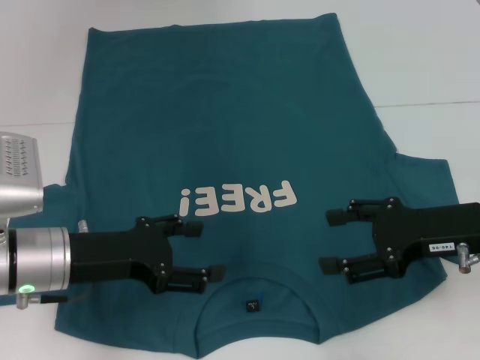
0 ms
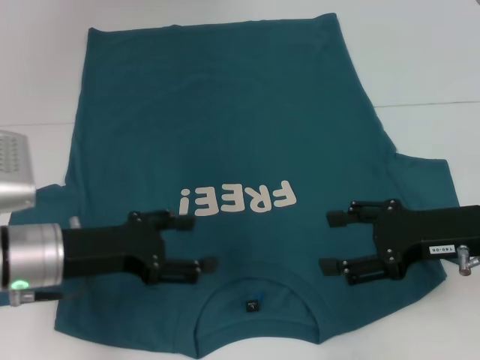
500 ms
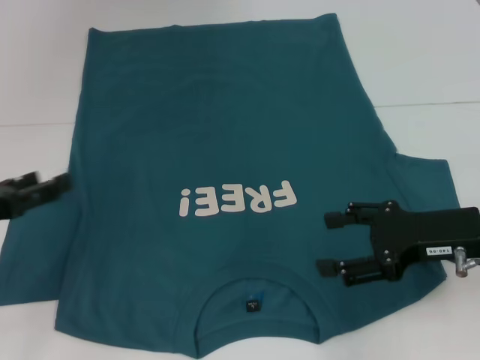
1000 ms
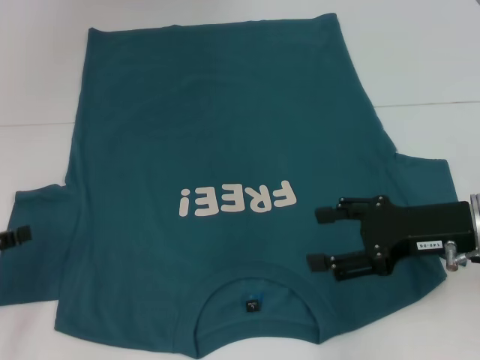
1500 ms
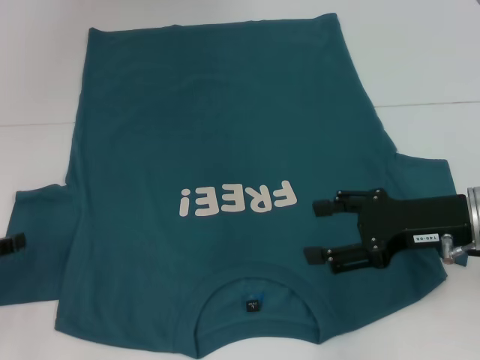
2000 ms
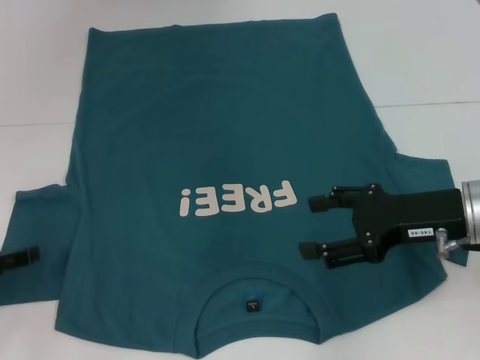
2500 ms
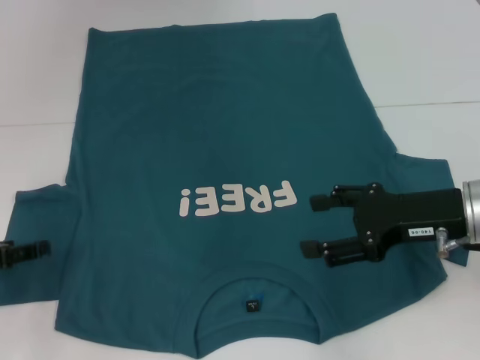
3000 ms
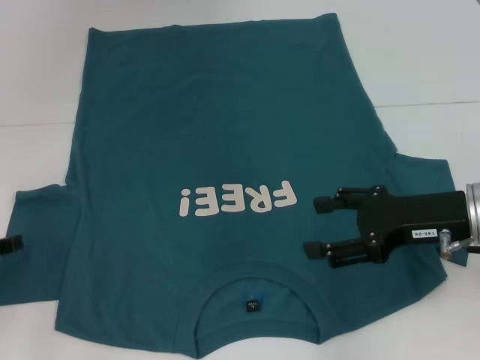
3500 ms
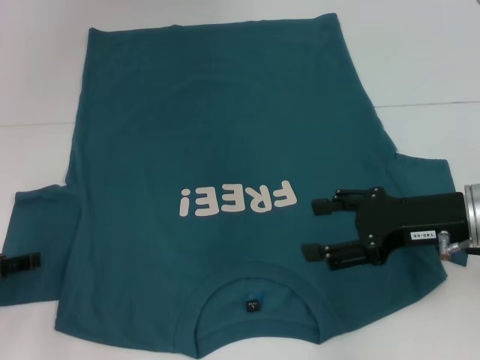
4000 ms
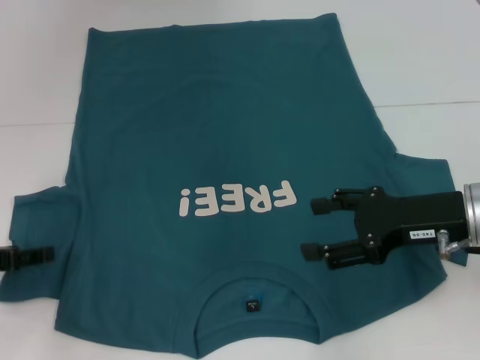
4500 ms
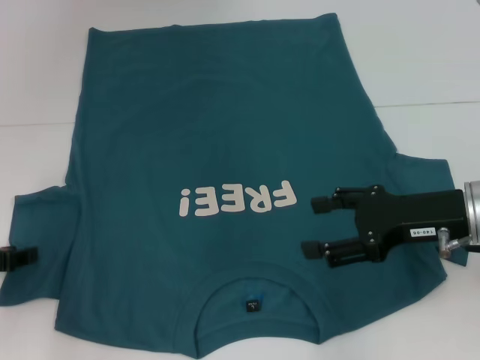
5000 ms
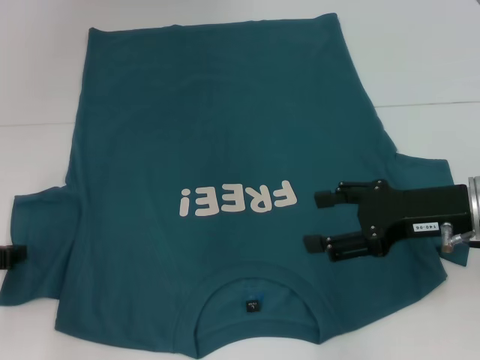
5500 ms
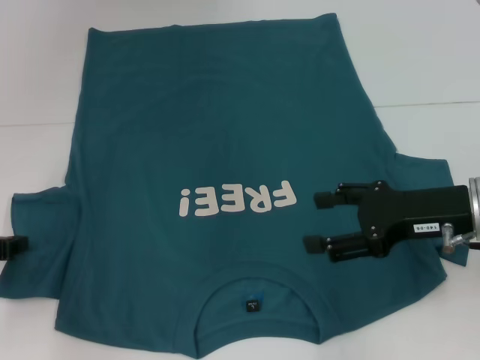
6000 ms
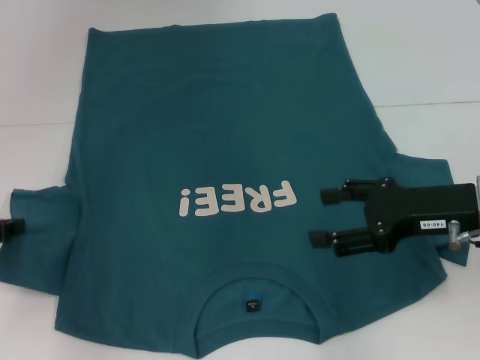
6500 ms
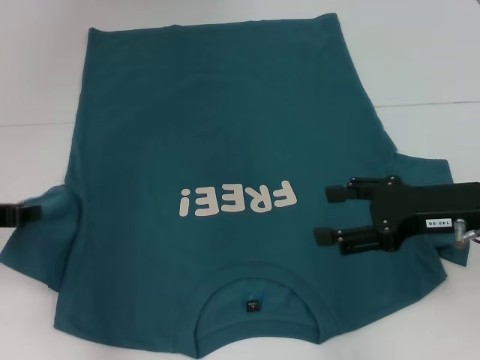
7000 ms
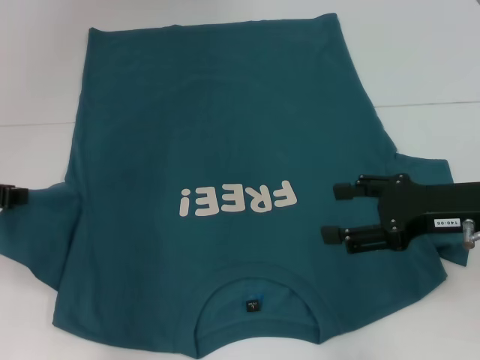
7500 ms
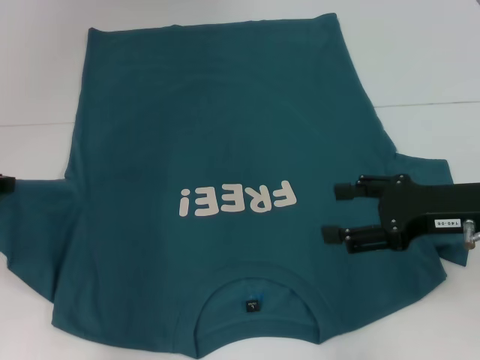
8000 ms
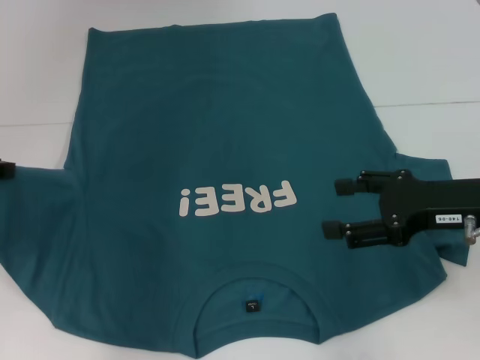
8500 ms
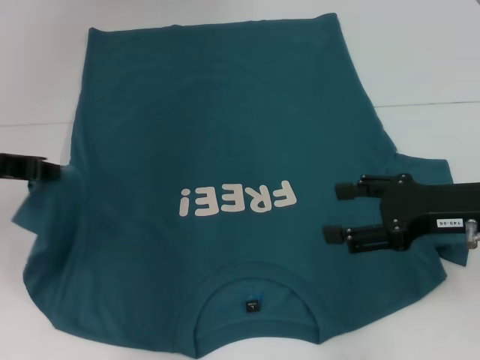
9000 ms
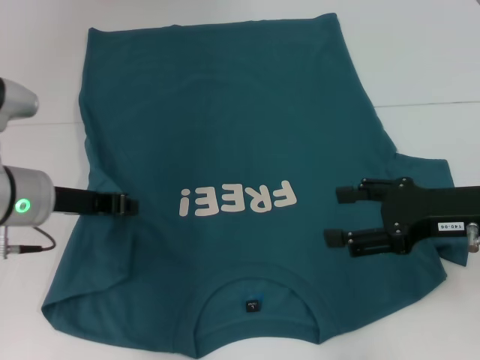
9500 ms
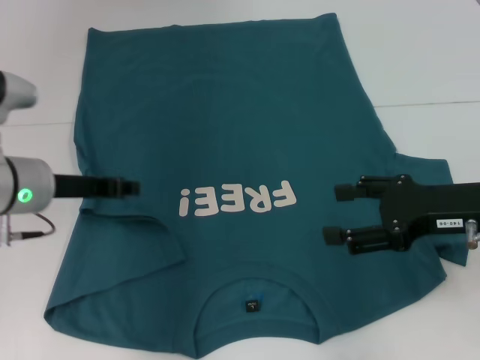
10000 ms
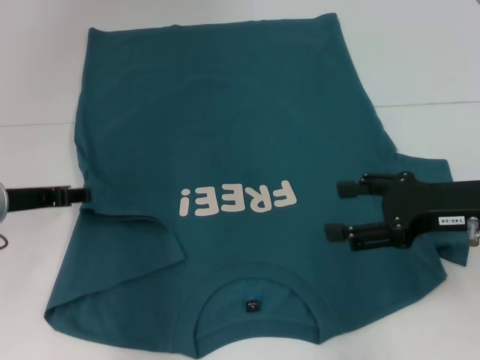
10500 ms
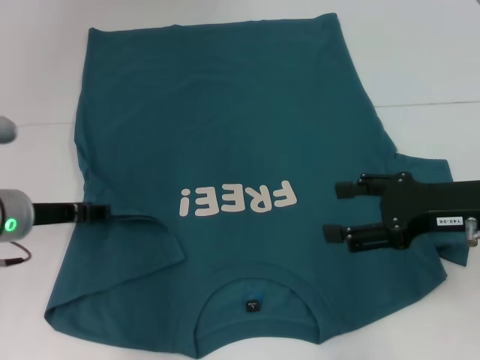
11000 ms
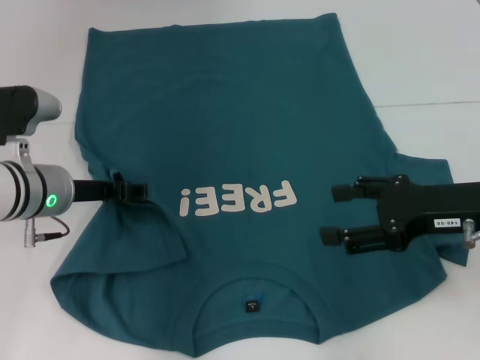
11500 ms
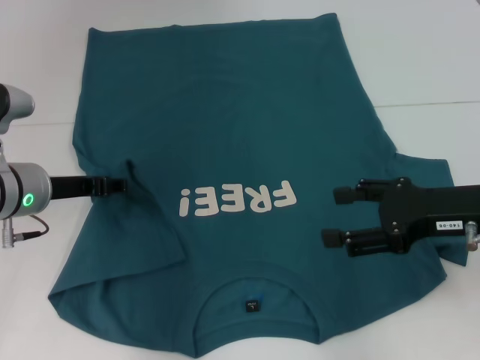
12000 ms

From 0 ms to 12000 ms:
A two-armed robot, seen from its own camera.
From 0 ms to 2000 ms: The left gripper travels to the left by some 15 cm.
From 2000 ms to 4000 ms: There are only small adjustments of the grippers.
From 4000 ms to 6000 ms: The left gripper closes up.
From 6000 ms to 8000 ms: The left gripper heads upward, covering approximately 10 cm.
From 8000 ms to 10000 ms: The left gripper goes roughly 10 cm to the right.
From 10000 ms to 12000 ms: The left gripper opens its fingers.

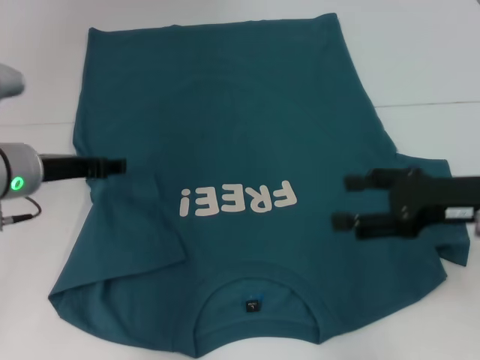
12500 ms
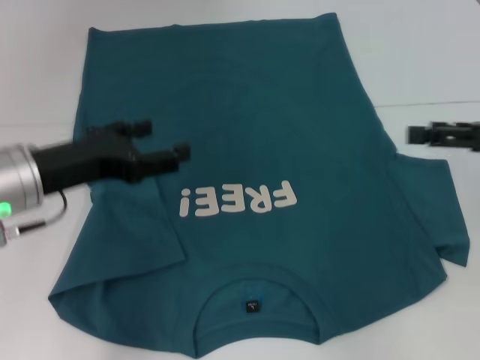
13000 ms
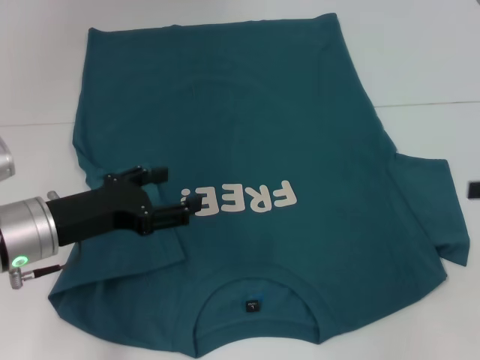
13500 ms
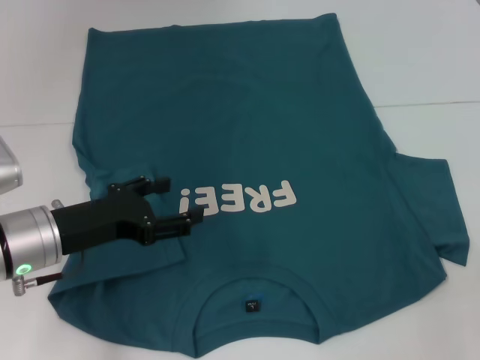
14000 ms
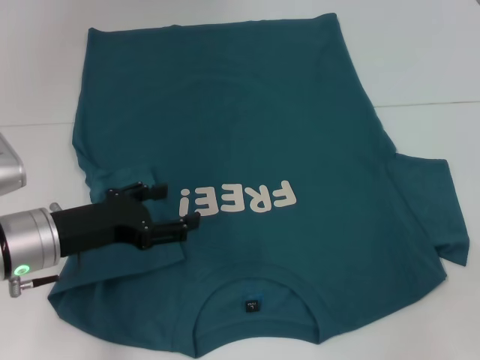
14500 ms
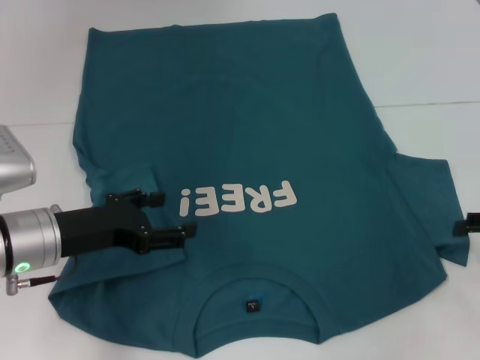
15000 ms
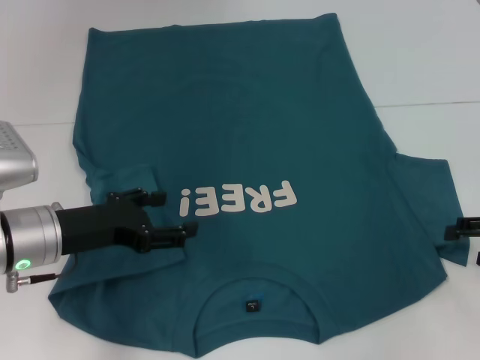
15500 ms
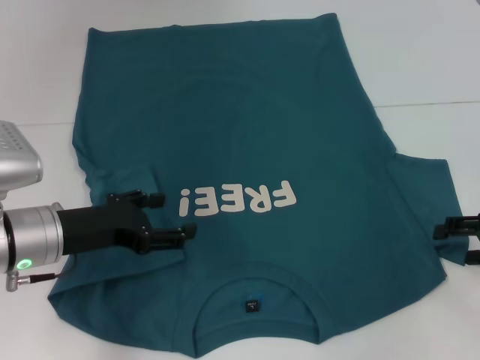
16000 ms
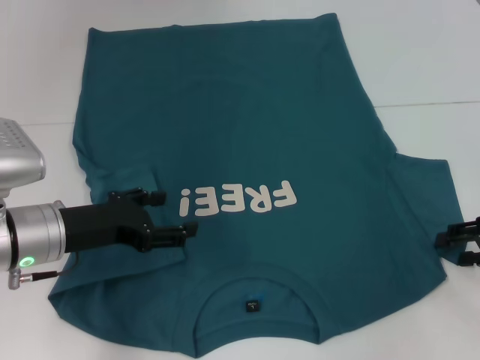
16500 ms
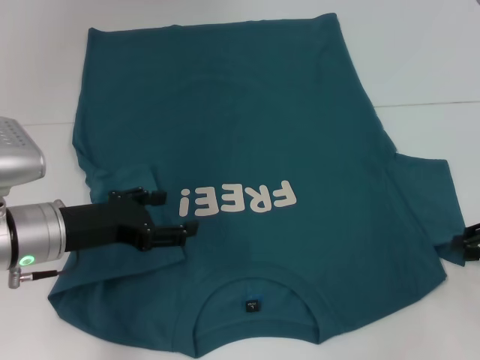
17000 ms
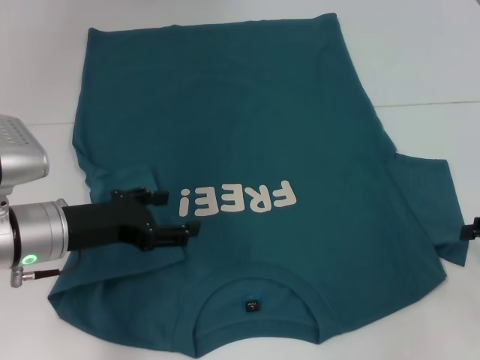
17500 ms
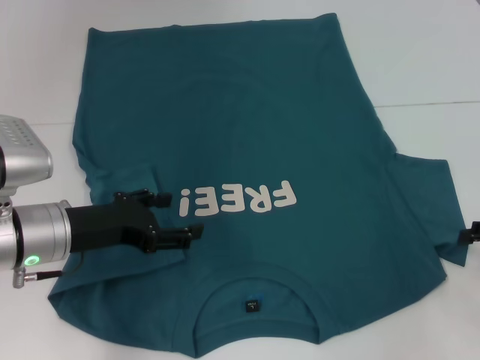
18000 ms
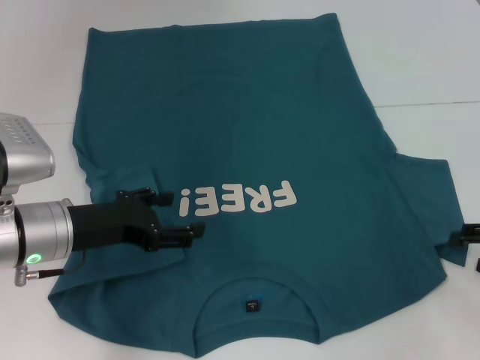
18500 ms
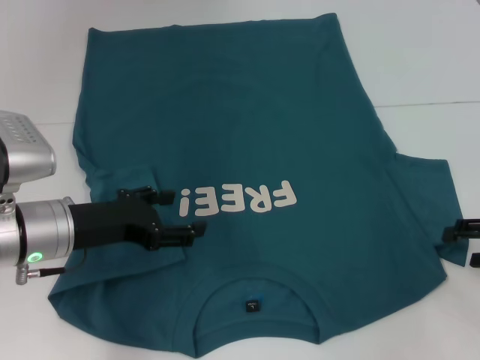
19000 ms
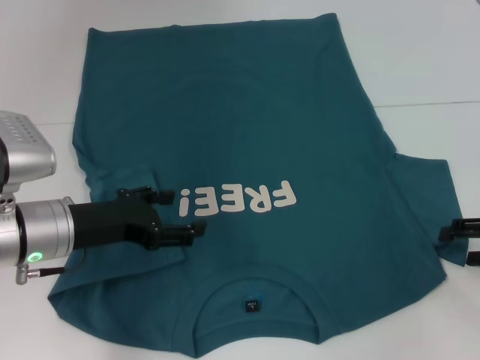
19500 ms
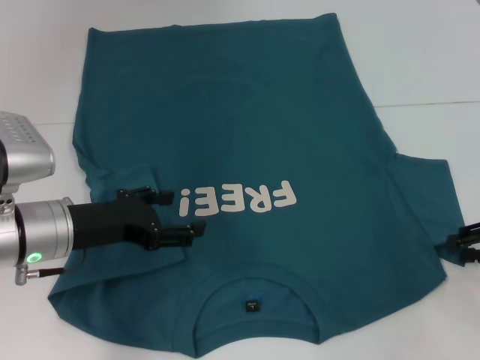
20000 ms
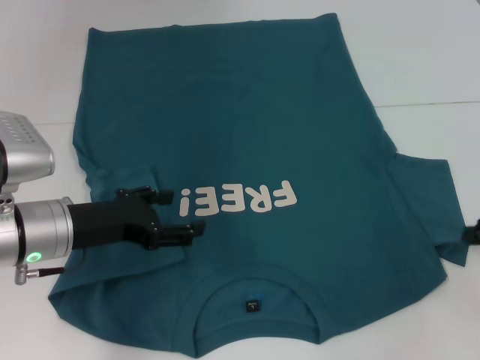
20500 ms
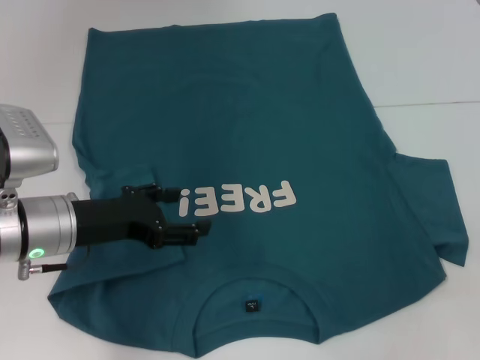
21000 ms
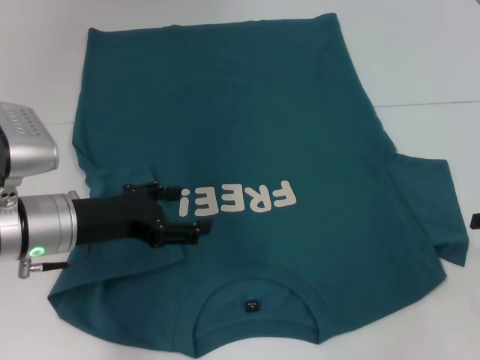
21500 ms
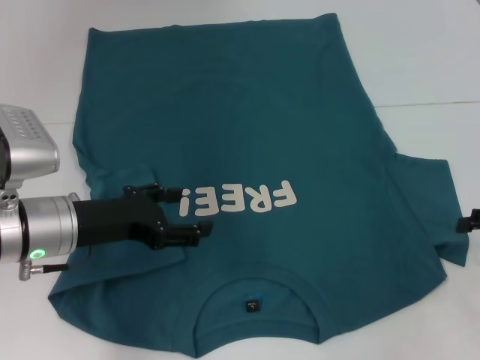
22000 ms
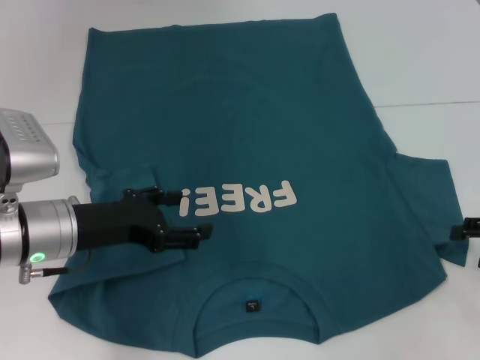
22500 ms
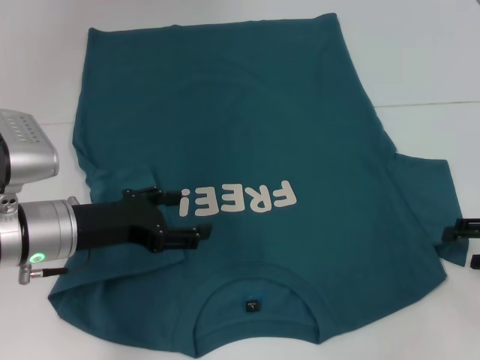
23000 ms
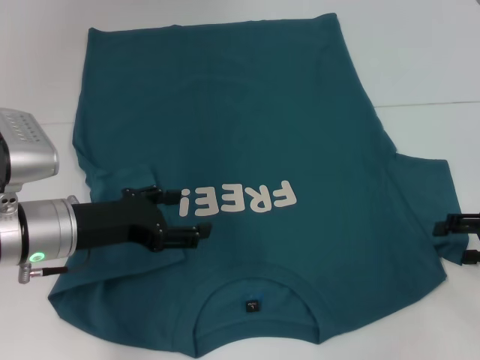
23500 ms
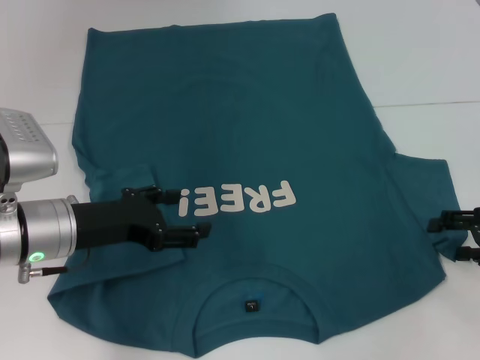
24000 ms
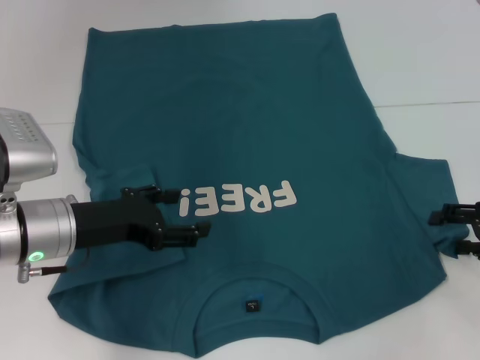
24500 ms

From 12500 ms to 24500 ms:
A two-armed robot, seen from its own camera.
From 12500 ms to 14500 ms: The right gripper goes roughly 15 cm to the right. The left gripper moves backward, roughly 5 cm.
From 14500 ms to 16500 ms: The right gripper ends up some 5 cm from where it was.
From 16500 ms to 18500 ms: The grippers move only a little.
From 22500 ms to 24500 ms: The grippers move only a little.

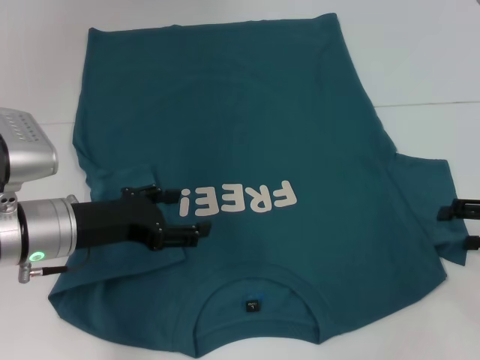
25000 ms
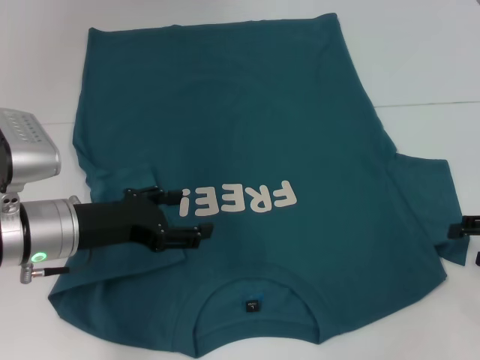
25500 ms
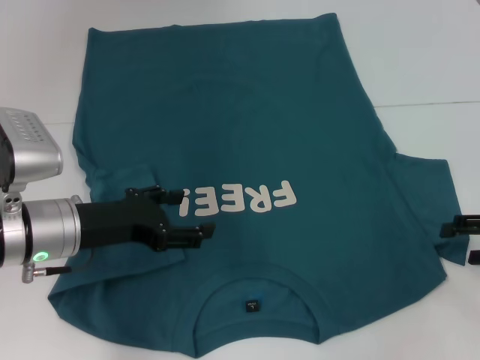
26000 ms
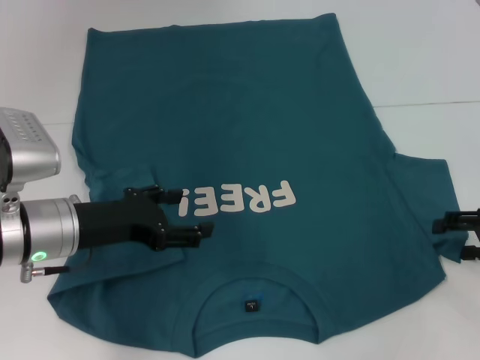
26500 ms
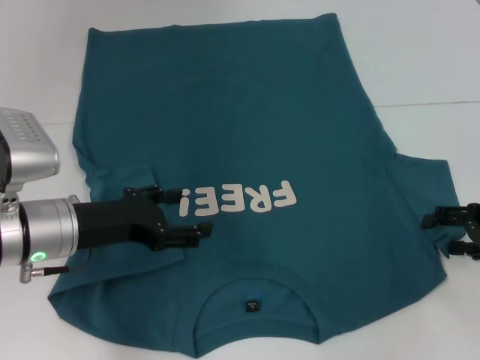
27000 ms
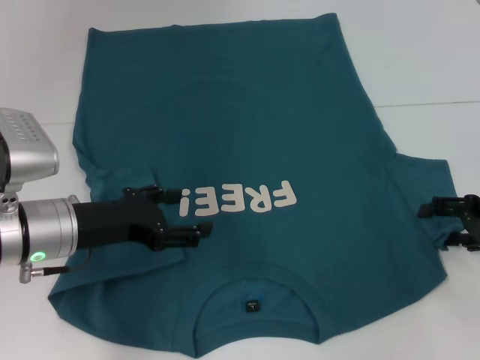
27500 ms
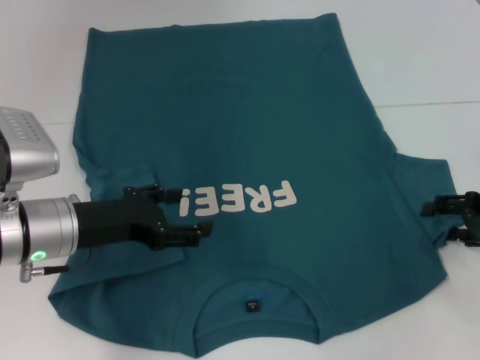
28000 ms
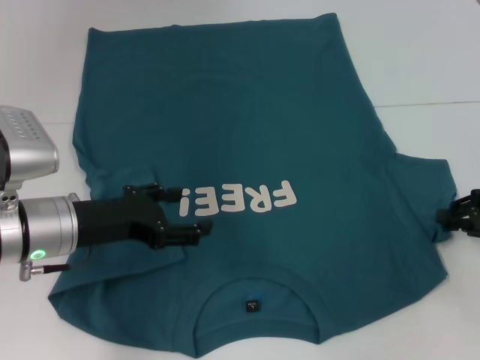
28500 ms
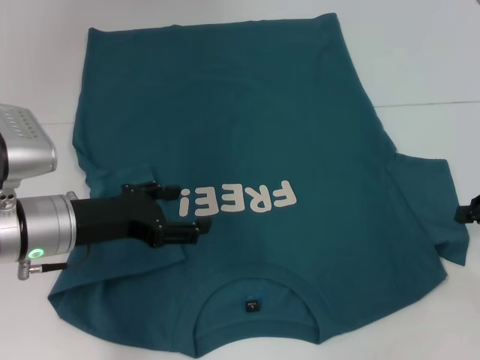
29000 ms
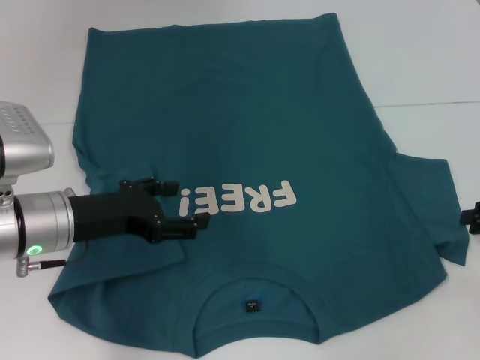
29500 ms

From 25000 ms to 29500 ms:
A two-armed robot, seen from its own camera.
From 25000 ms to 27000 ms: The grippers make only small movements.
From 27000 ms to 29500 ms: The right gripper closes its fingers.
